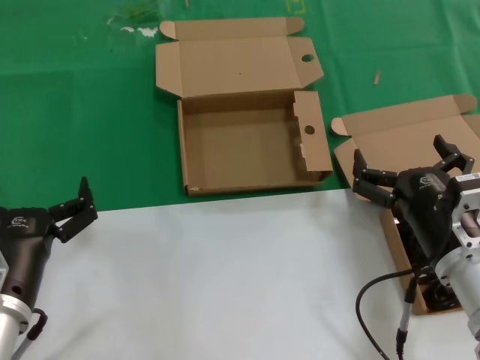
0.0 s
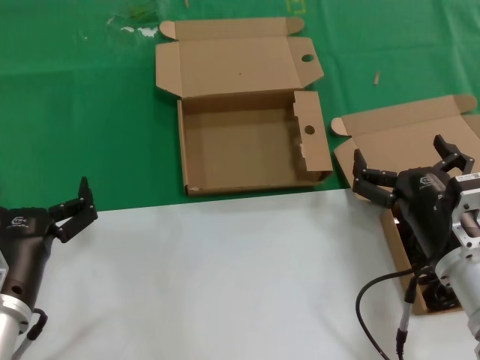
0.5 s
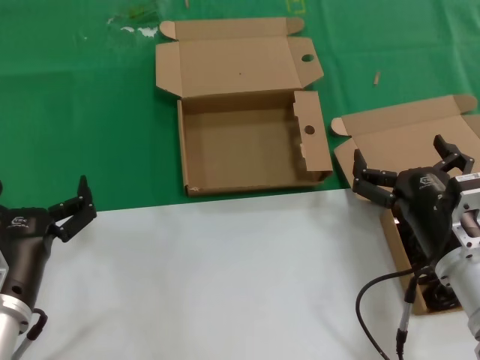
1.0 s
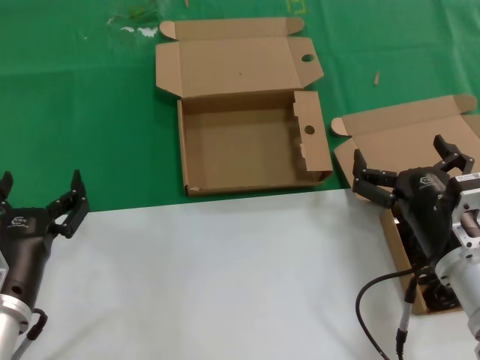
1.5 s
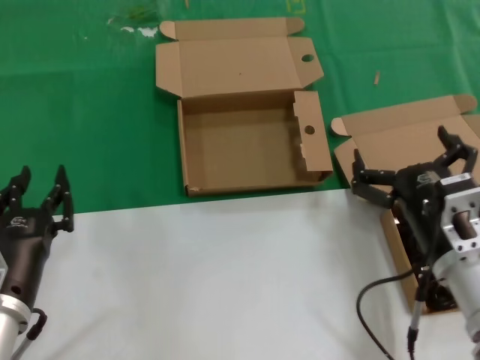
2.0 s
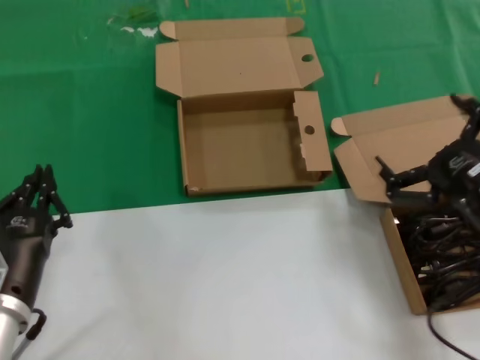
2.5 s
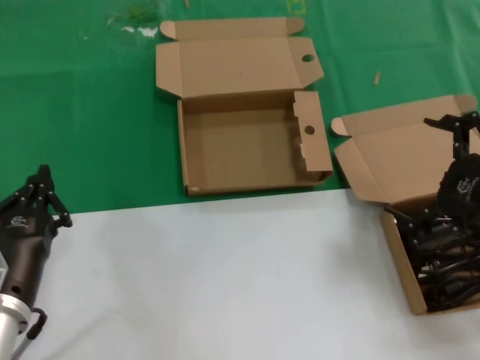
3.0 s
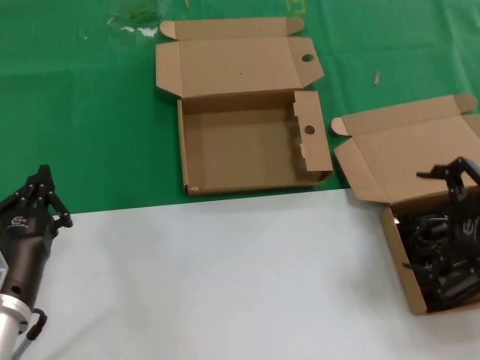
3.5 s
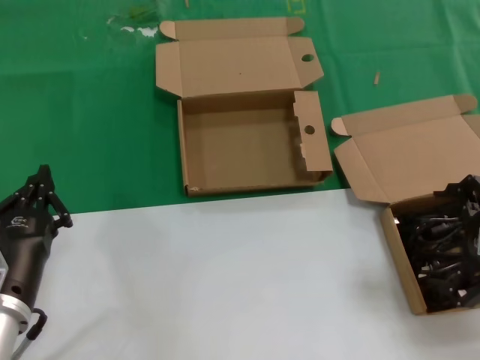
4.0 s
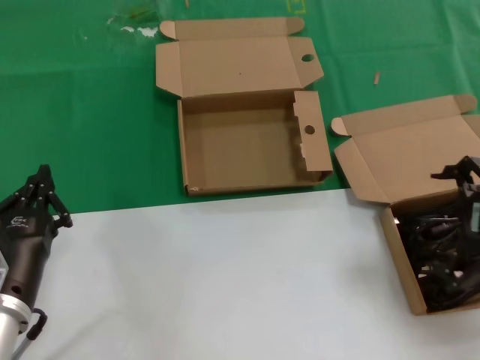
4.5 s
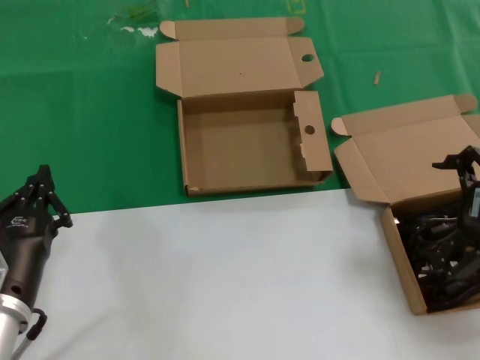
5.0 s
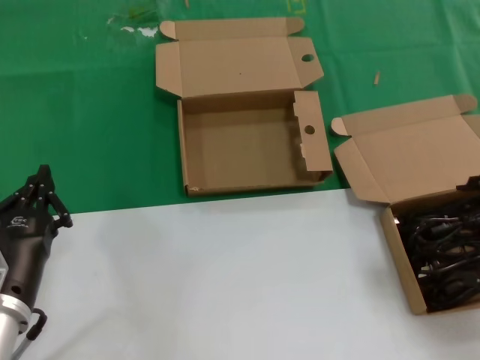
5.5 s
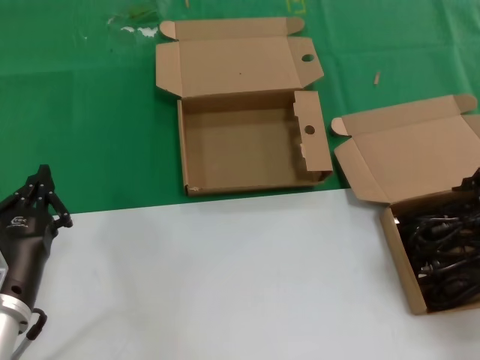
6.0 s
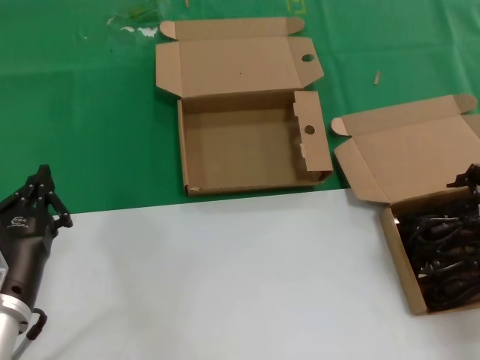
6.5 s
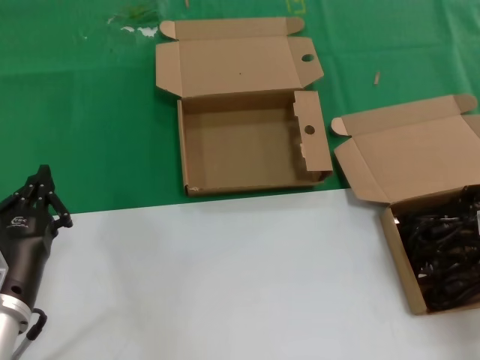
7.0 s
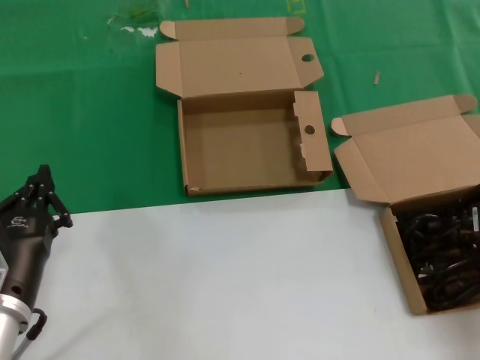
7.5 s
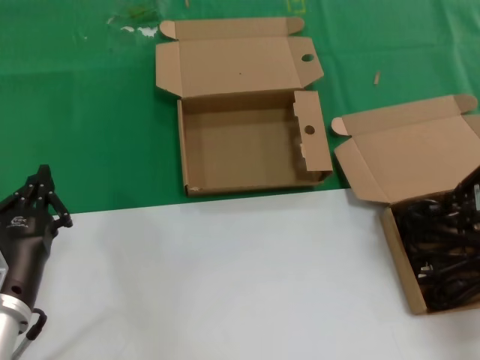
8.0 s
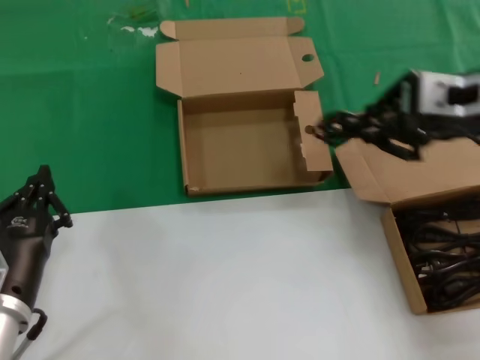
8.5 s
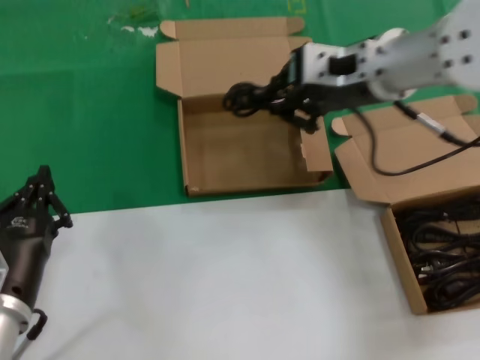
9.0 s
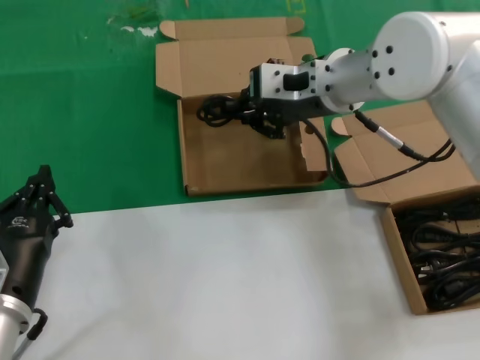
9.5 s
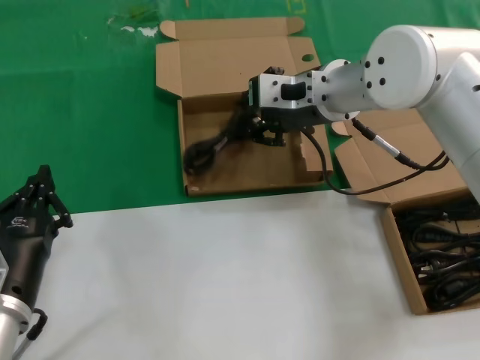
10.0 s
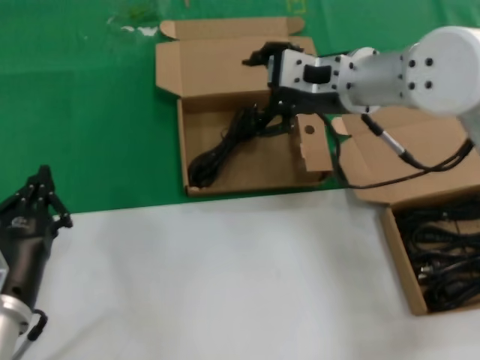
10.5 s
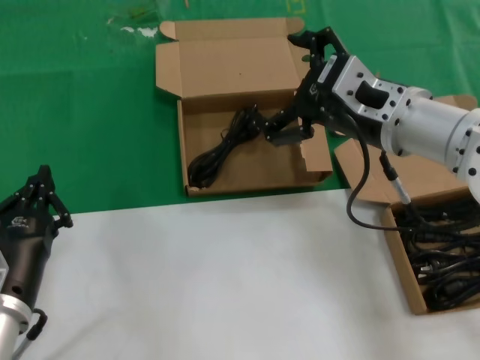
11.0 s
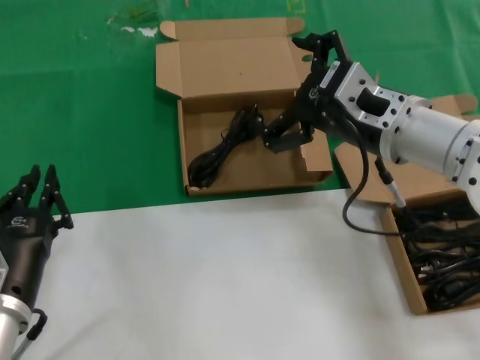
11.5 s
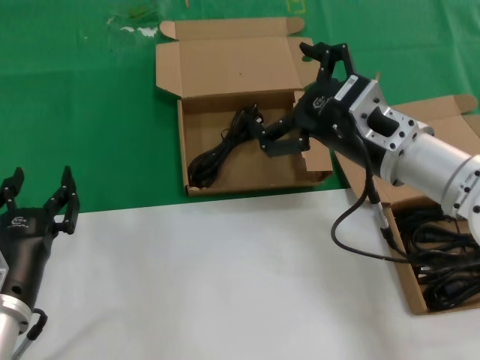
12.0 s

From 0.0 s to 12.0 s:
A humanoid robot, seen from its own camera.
Task of the whole recording: take the parts from the box containing them and put them into an empty box.
Step, from 0.0 s to 7.5 s: Grasp the data cable.
Step, from 8.0 s to 10.0 s: Place the data cable in the another box.
From 0.0 s to 2.0 s: The hands stay close to where they were, moving slightly.
From 2.0 s to 4.0 s: The right hand shifts about 15 cm upward and to the right.
From 4.0 s to 6.0 s: The right hand shifts by approximately 5 cm.
From 8.0 s to 10.0 s: The right hand moves to the left and forward, some 30 cm.
From 10.0 s to 12.0 s: The right hand shifts roughly 15 cm backward, to the right and downward.

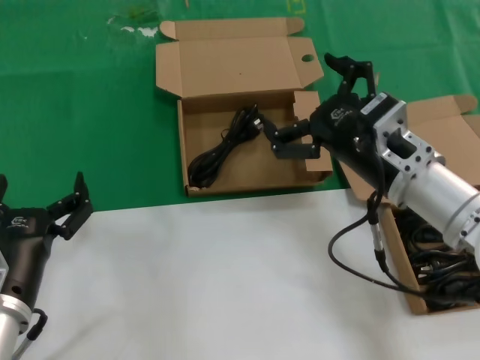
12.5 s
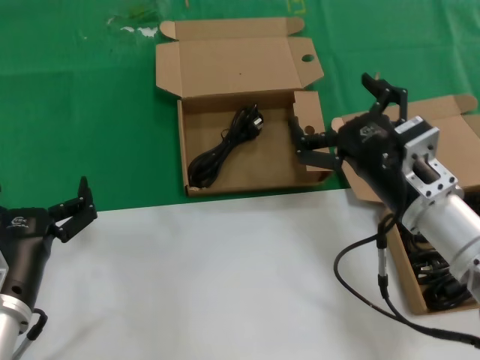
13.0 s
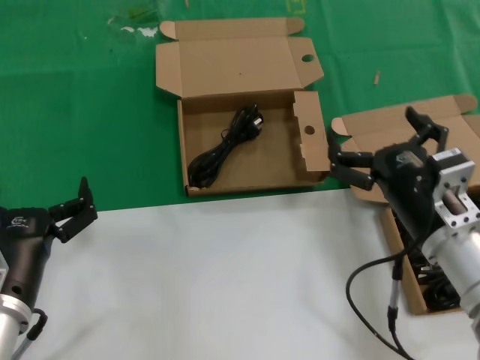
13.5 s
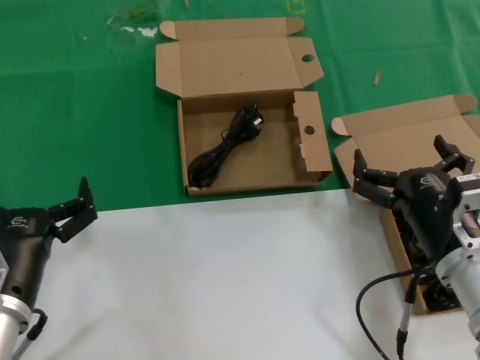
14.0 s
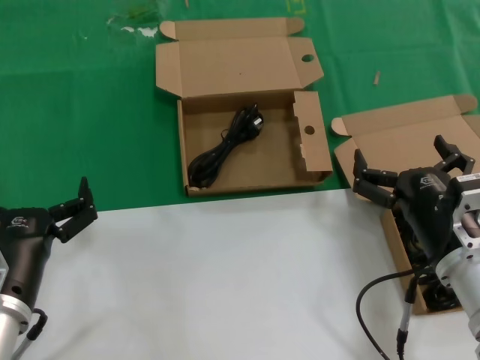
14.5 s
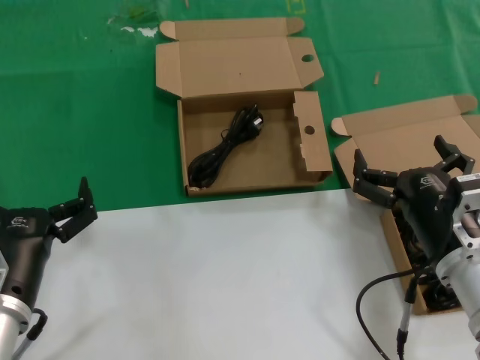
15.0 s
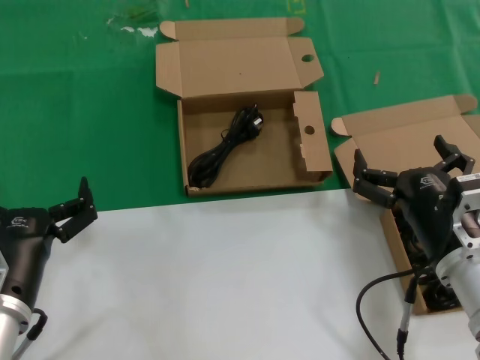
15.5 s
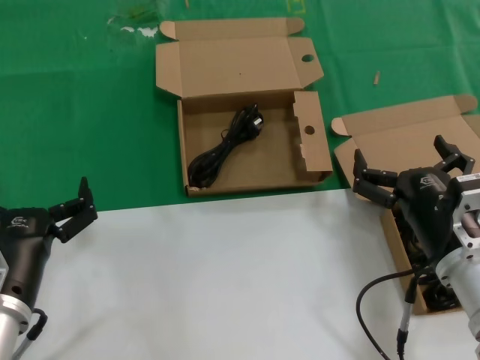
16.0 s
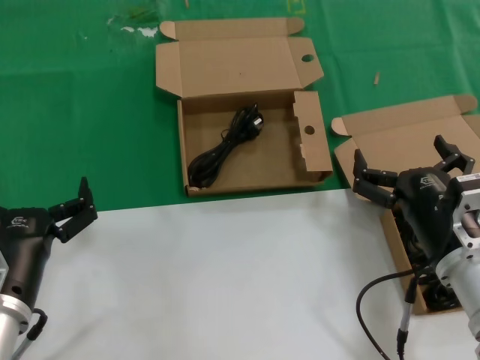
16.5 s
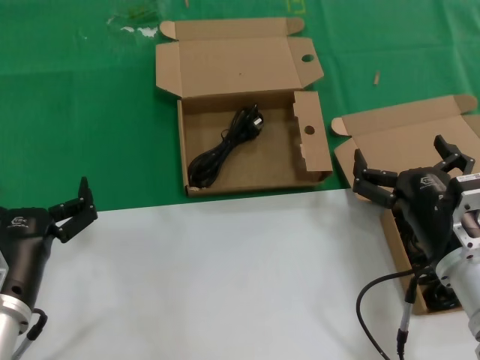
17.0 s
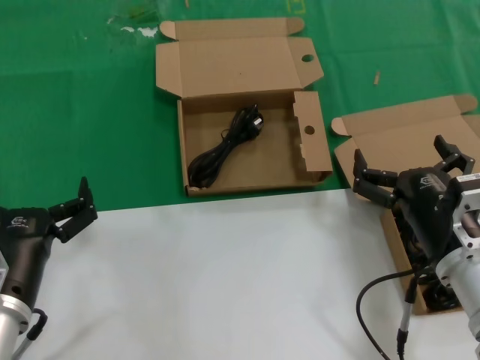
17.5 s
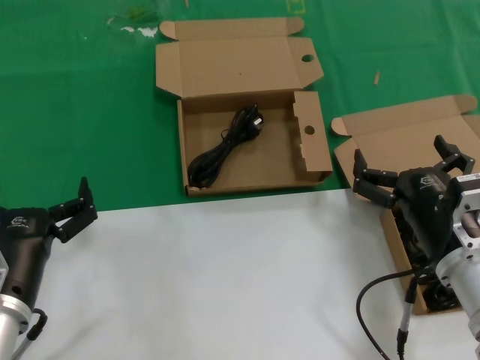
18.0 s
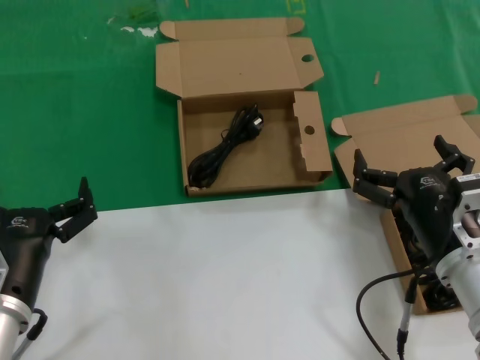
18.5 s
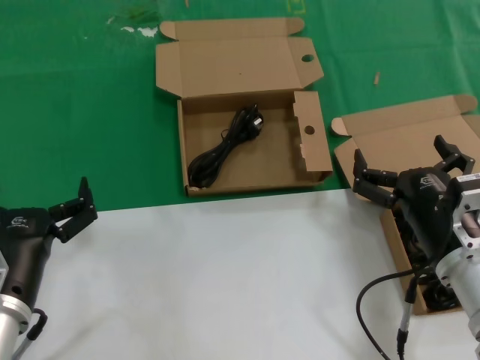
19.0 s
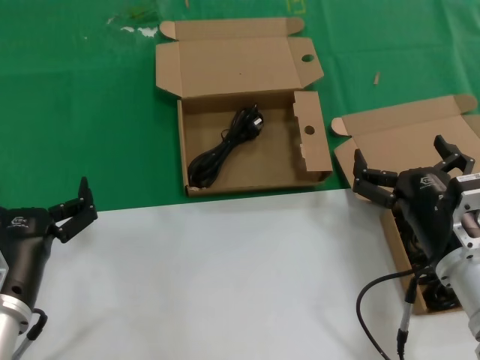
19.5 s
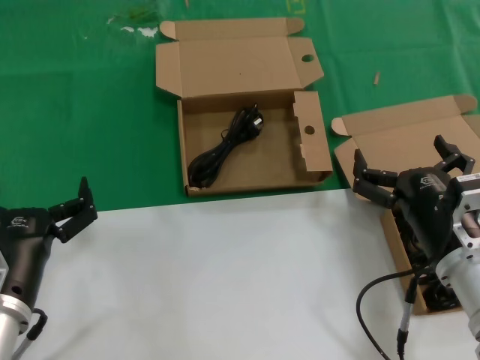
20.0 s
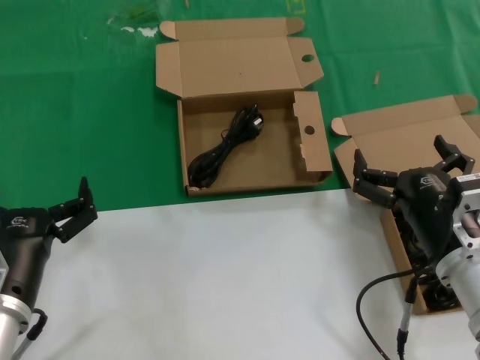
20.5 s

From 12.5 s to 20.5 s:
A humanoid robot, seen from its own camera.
Task of the whole recording: take the parts from the box containing them and put them into an empty box.
From 12.5 s to 14.5 s: The right hand goes about 10 cm downward and backward.
From 14.5 s to 20.5 s: The two hands keep their place.

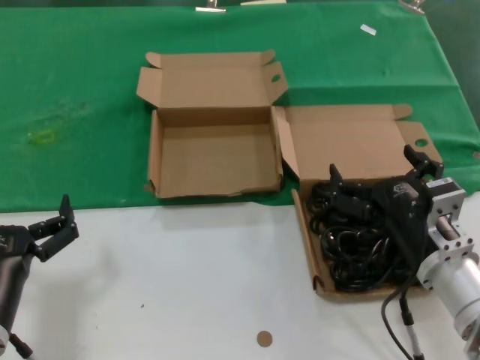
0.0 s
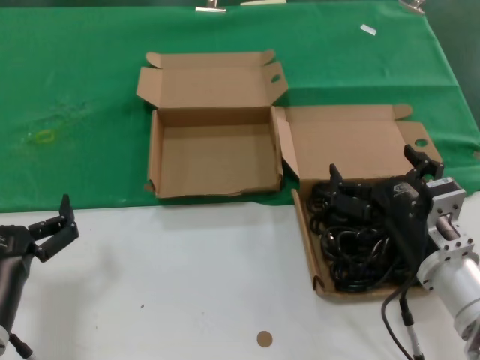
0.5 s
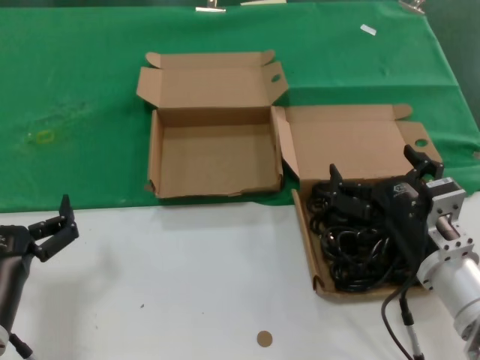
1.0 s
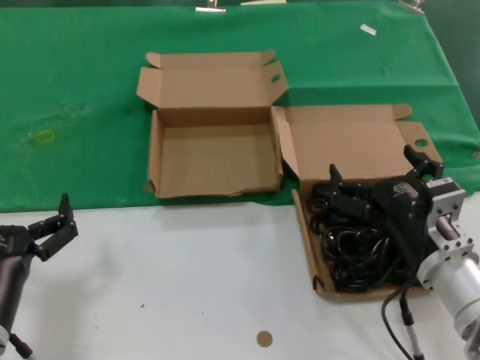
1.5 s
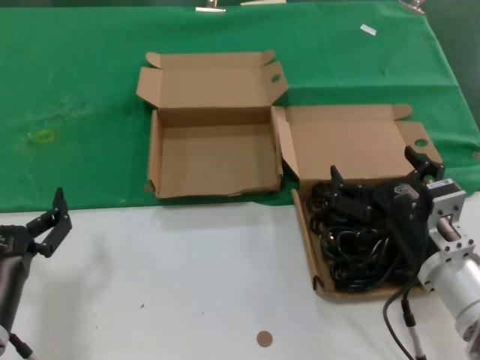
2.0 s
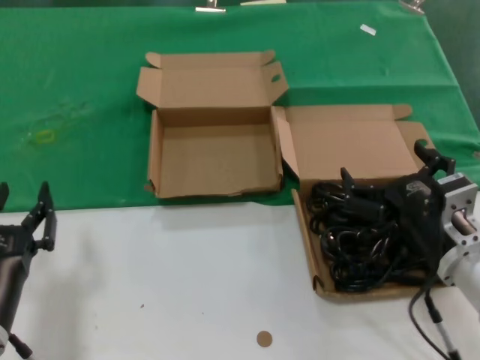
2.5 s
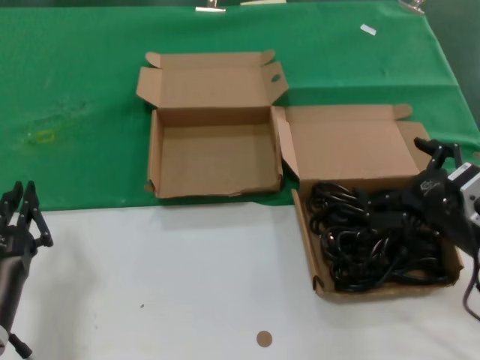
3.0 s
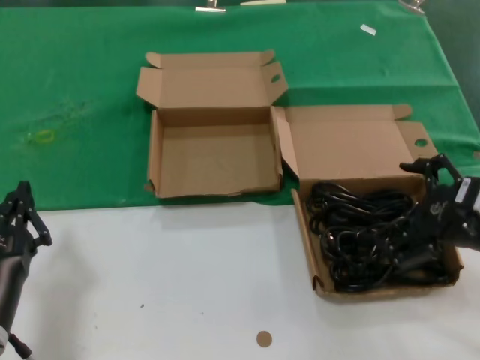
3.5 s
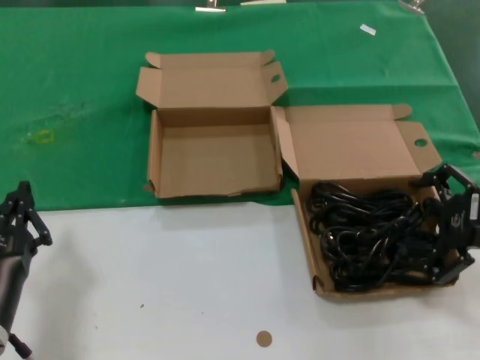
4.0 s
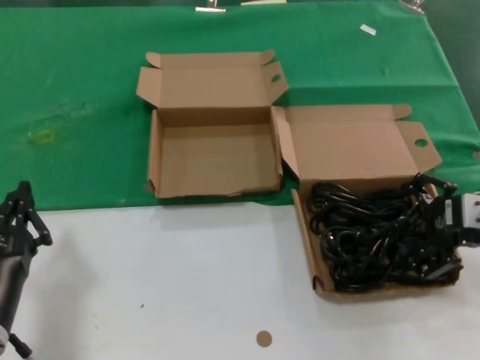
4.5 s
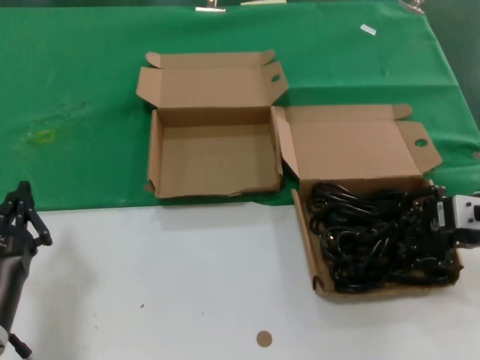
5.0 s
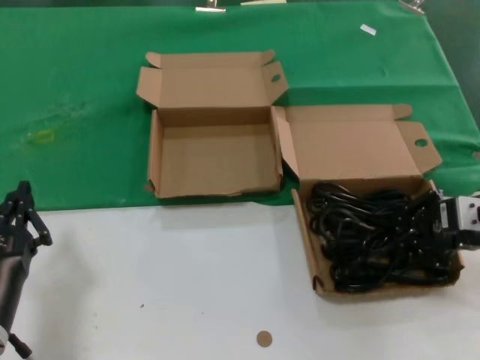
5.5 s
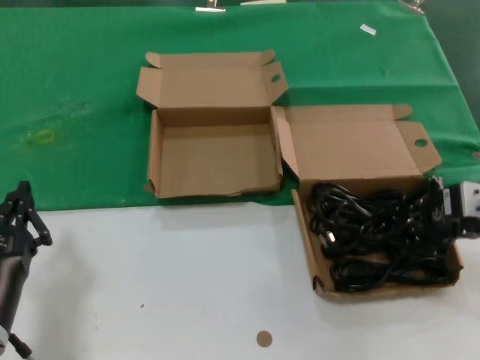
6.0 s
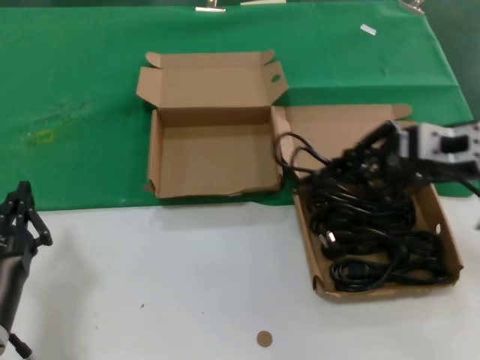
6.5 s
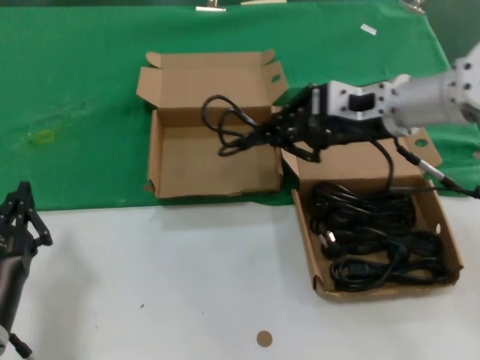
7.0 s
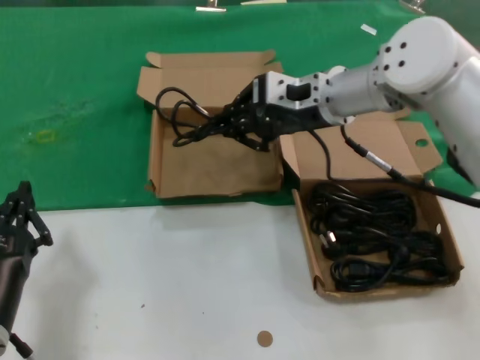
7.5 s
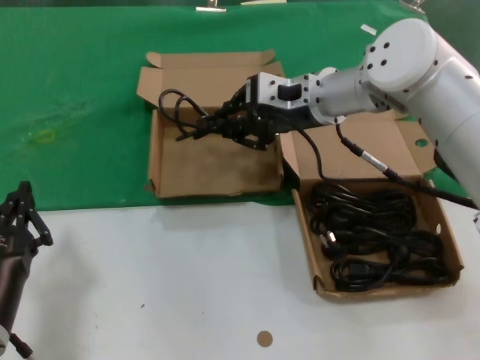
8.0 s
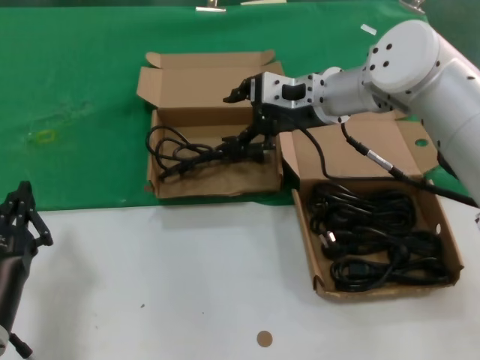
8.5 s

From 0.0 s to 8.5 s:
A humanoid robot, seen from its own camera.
Task of the whole recording: take the parts from the box containing them and put them into an empty box.
Step, from 0.0 s to 5.5 s: Grasp the data cable.
Step, from 6.0 s to 8.0 s: Place the data cable in the another box.
From 0.0 s to 2.0 s: The two hands keep their place.
From 2.0 s to 4.0 s: The right hand moves to the right and upward, some 20 cm.
From 4.0 s to 6.5 s: The right hand moves forward, upward and to the left, about 10 cm.
From 6.5 s to 8.5 s: The right hand shifts approximately 20 cm to the left and forward.
